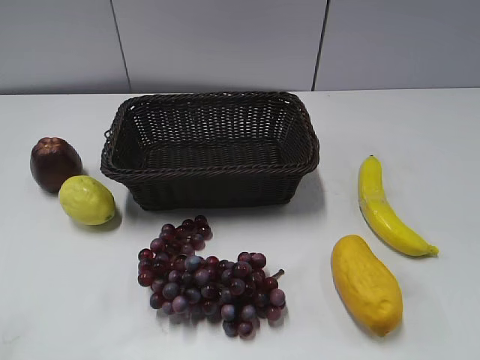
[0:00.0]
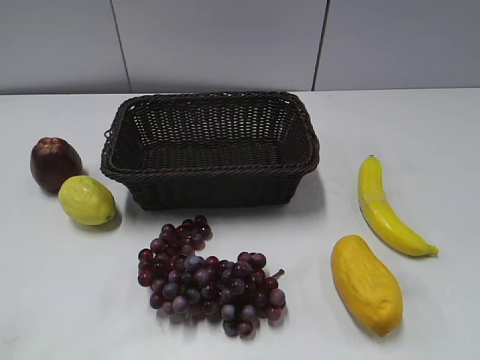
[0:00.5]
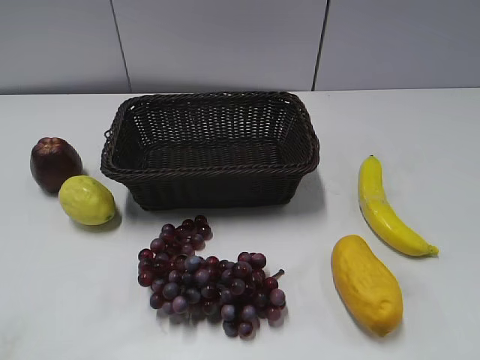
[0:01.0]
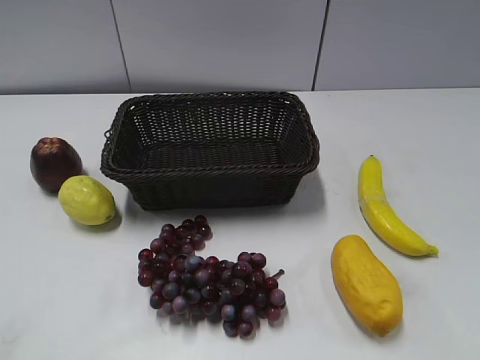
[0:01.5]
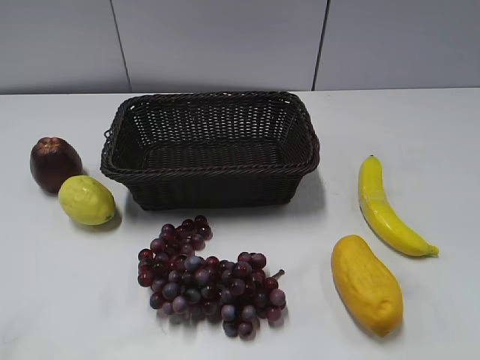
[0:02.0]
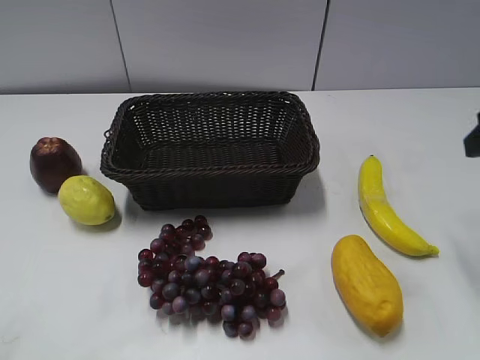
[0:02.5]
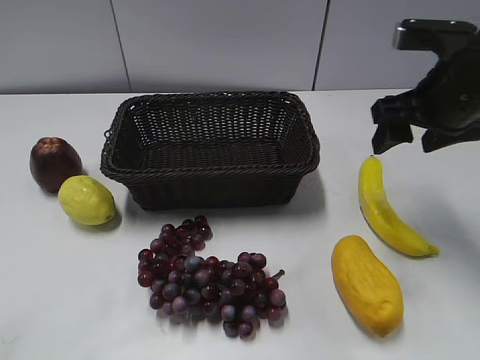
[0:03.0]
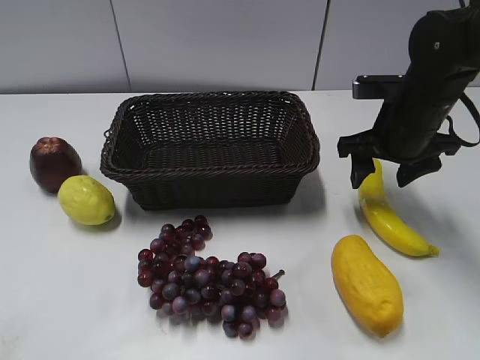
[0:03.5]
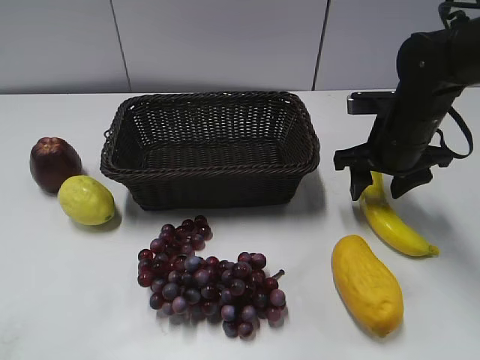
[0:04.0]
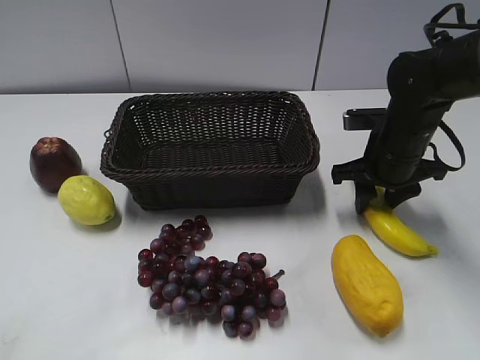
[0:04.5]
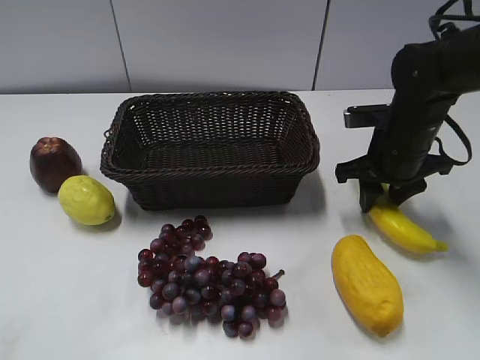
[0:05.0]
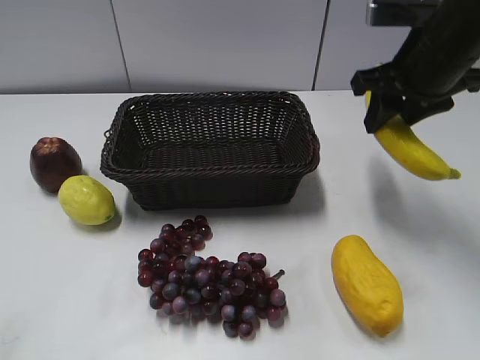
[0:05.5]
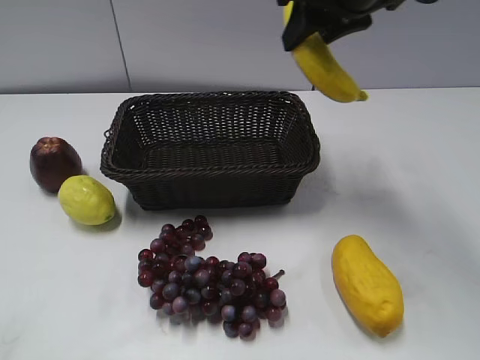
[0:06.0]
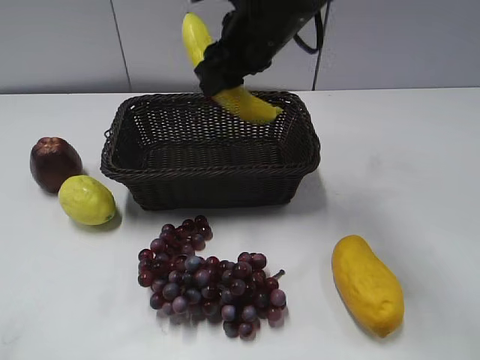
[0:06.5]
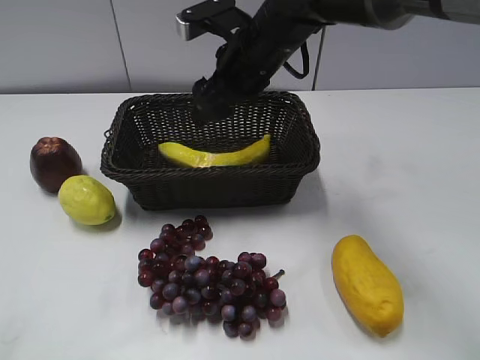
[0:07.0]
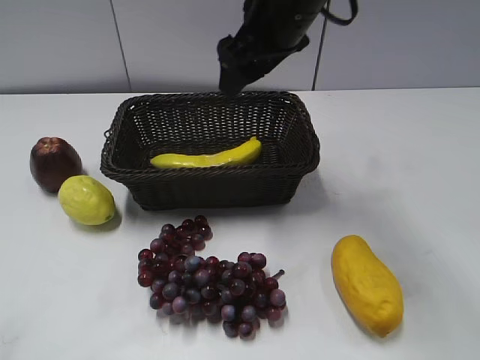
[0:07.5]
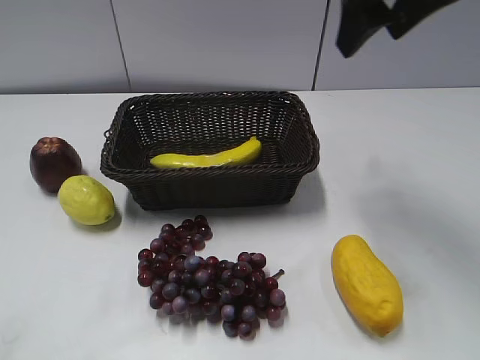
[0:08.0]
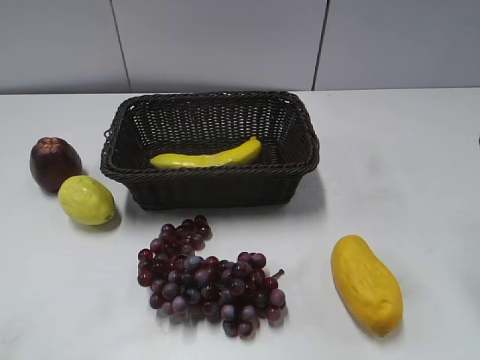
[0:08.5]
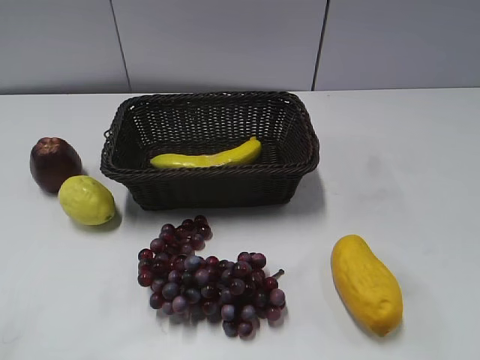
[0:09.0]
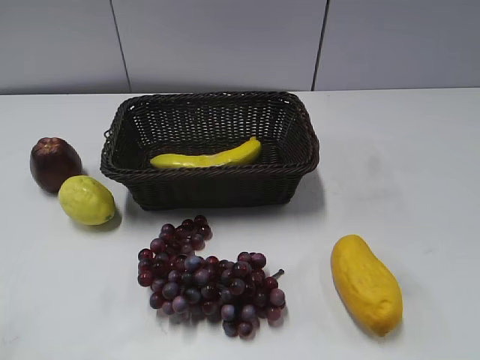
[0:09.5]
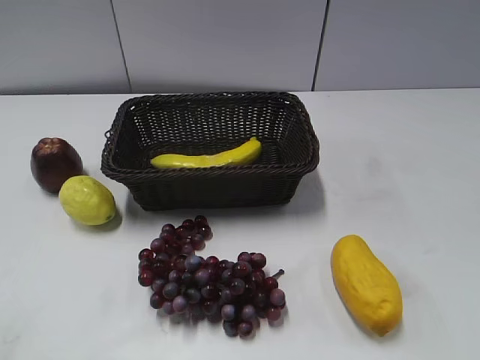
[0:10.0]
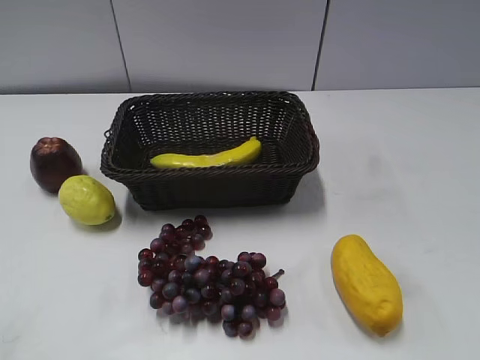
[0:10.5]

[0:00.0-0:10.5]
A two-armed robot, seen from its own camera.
Step, 0:02.5 to 0:04.5: Grasp the banana with right gripper.
Step, 0:05.0 to 0:06.5: Place the banana in the basket with right gripper.
0:02.0 to 0:04.0: The right gripper goes approximately 30 cm forward, downward and to the left.
0:04.0 to 0:06.5: The right gripper is displaced to the left and upward by roughly 20 cm, and closes up.
0:06.5 to 0:08.5: The right gripper is displaced to the right and backward by some 30 cm, and opens its fingers.

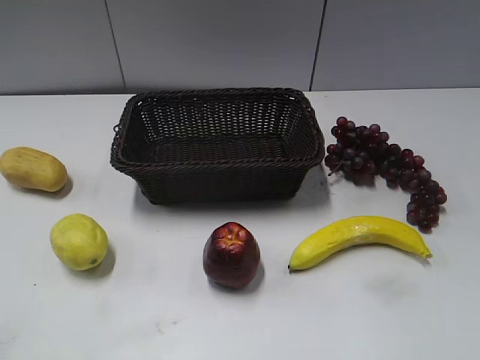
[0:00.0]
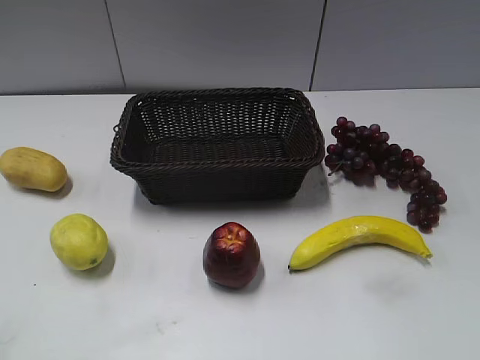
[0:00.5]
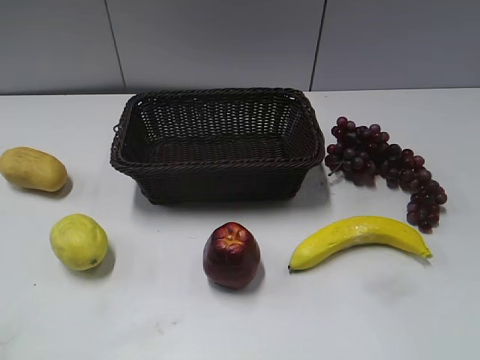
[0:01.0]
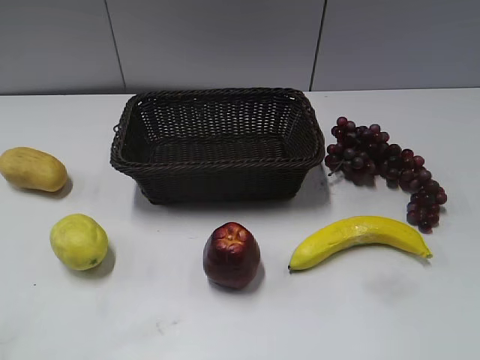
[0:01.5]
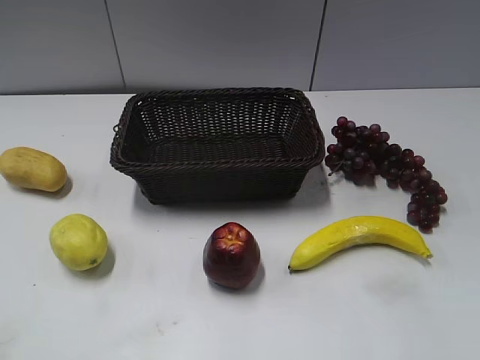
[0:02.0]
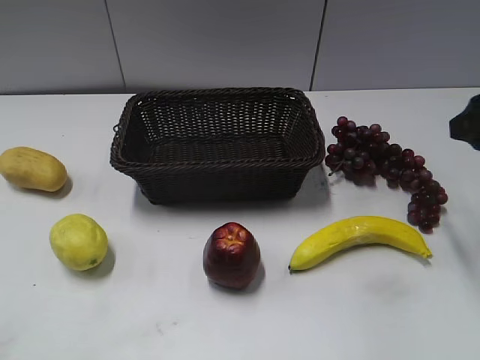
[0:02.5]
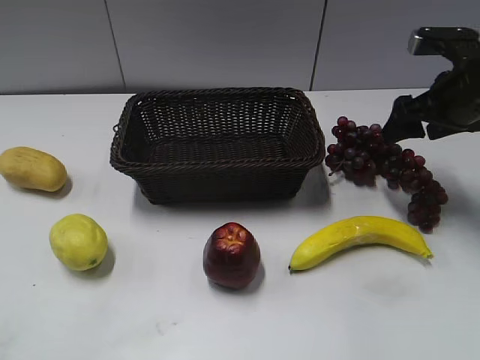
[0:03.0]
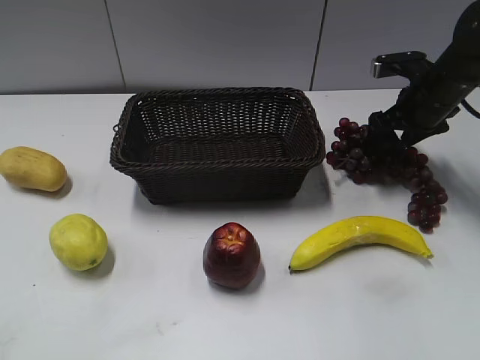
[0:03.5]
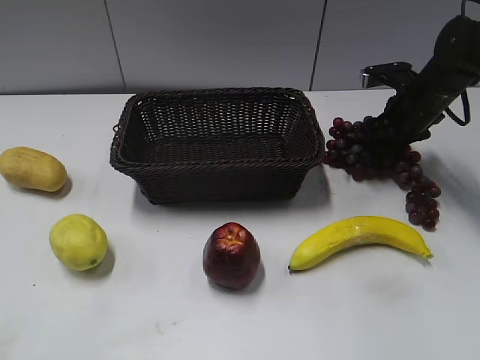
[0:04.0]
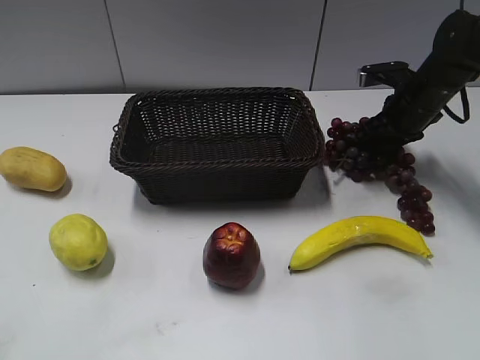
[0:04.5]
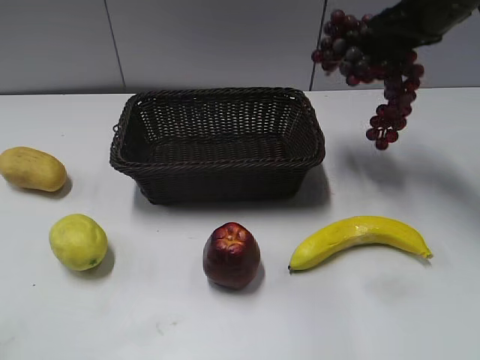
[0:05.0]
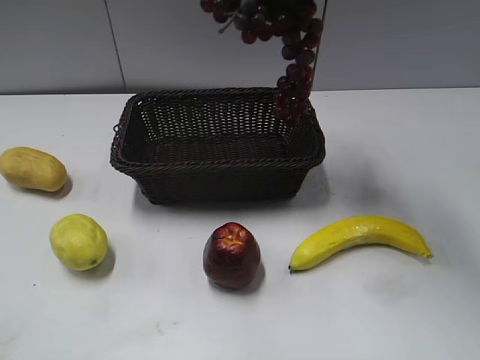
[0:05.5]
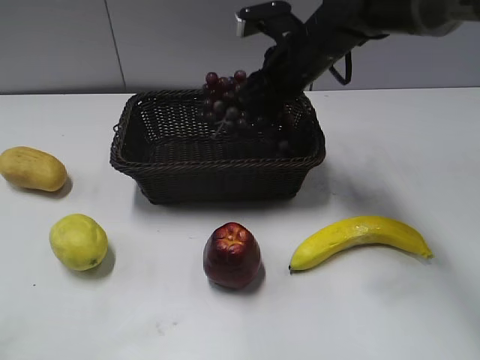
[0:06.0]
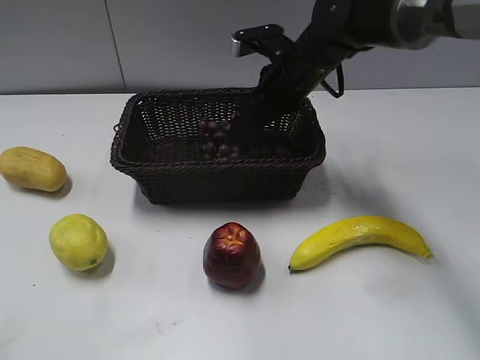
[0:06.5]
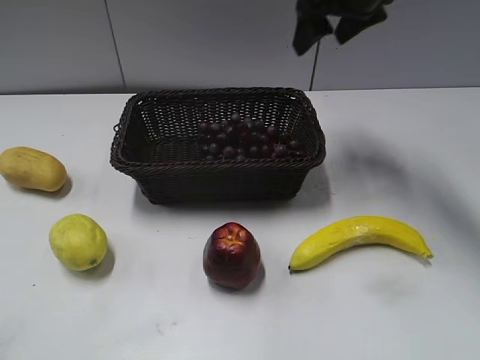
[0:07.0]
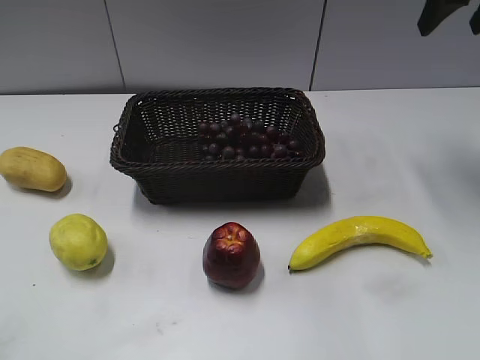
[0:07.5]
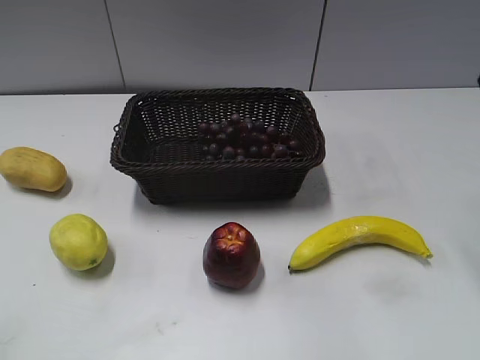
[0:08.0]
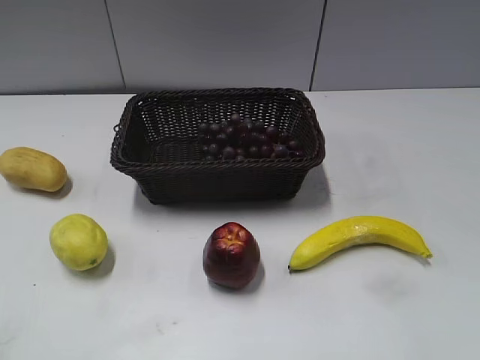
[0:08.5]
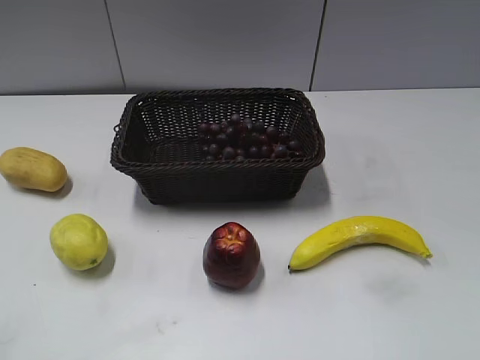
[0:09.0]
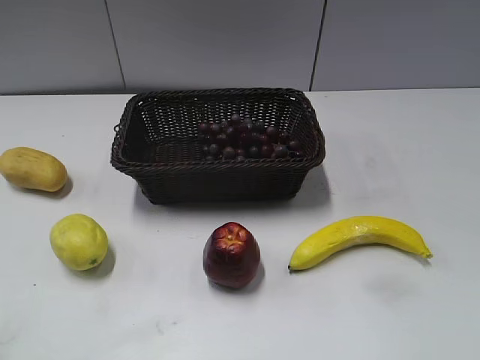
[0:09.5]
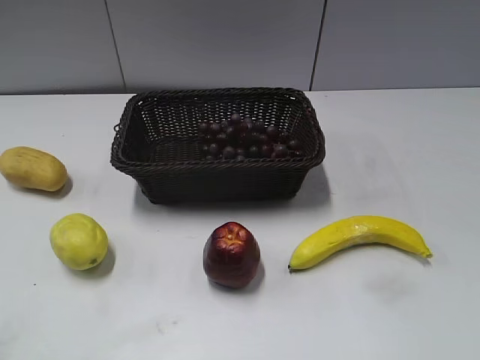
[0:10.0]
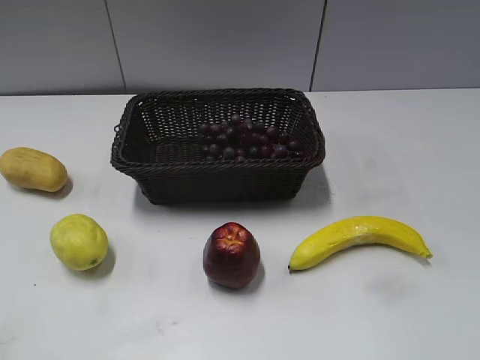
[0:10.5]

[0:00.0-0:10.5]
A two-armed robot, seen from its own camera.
Step, 0:02.5 to 0:04.0: Grasp the grape with right gripper.
Step, 0:04.5 to 0:06.5: Place the grape in the basket with right gripper.
0:02.0 to 0:04.0: The right gripper moves forward and downward, roughly 40 cm, and closes up.
0:04.0 to 0:06.5: The right gripper shifts roughly 20 cm to the left, travels upward and back again, some 20 cm each way, and opens up.
0:06.5 to 0:08.5: The right gripper goes approximately 40 cm backward, to the right and upward.
